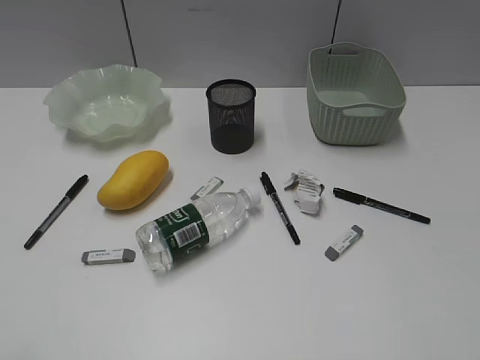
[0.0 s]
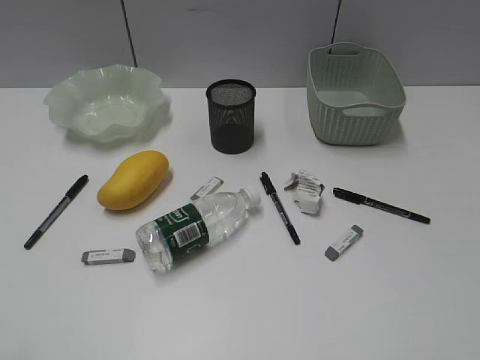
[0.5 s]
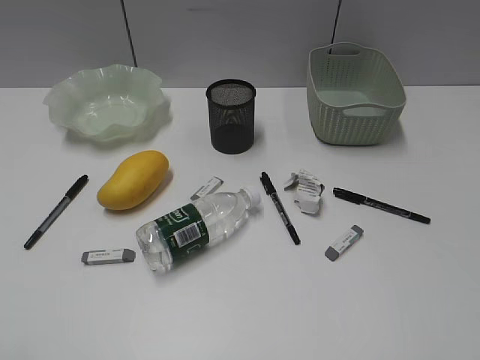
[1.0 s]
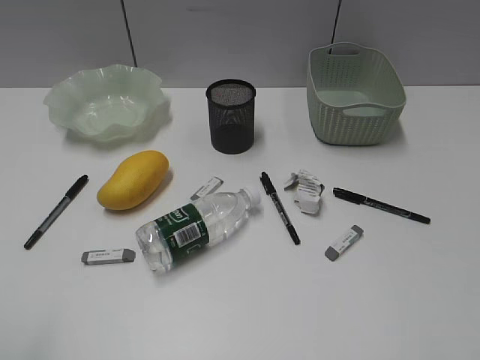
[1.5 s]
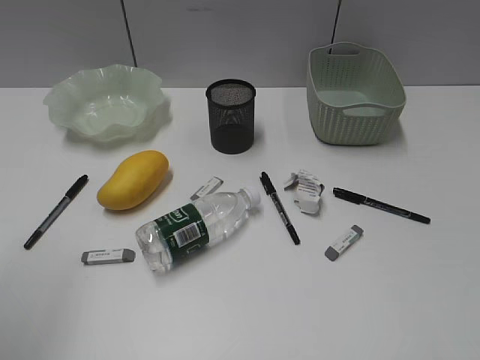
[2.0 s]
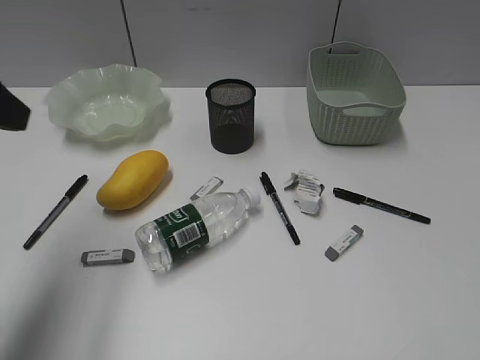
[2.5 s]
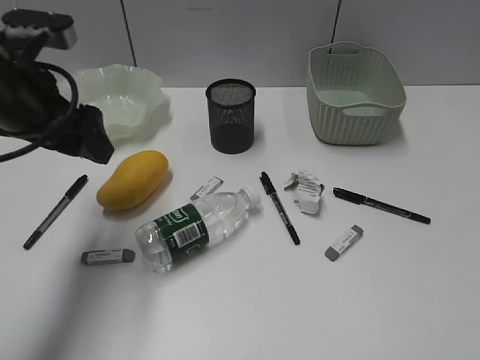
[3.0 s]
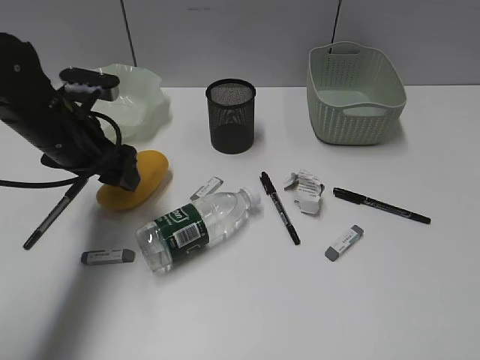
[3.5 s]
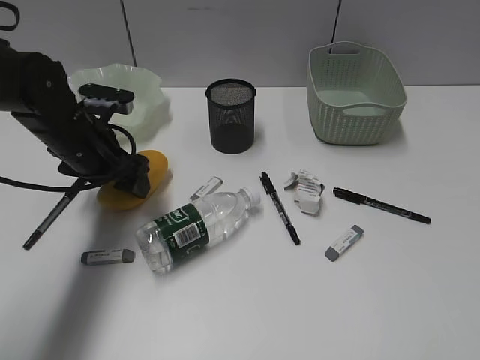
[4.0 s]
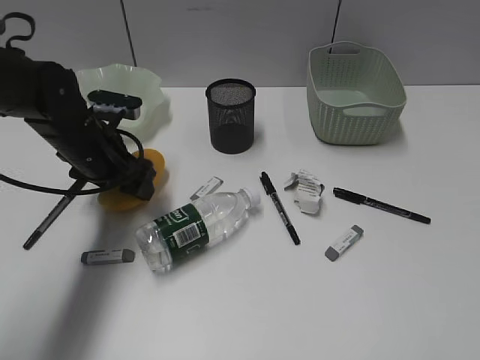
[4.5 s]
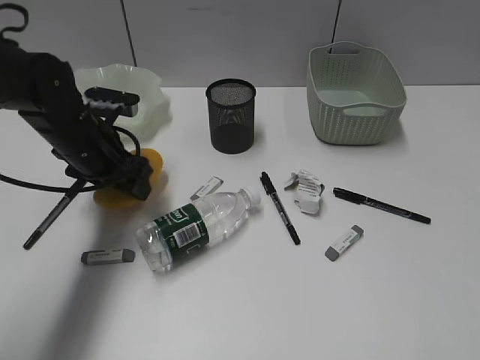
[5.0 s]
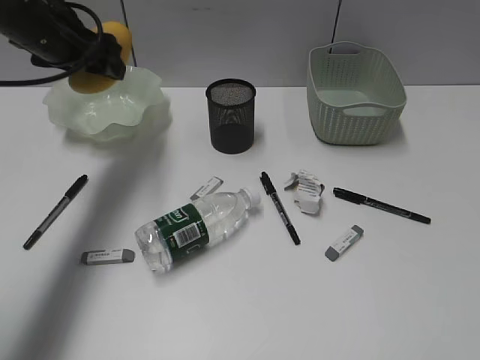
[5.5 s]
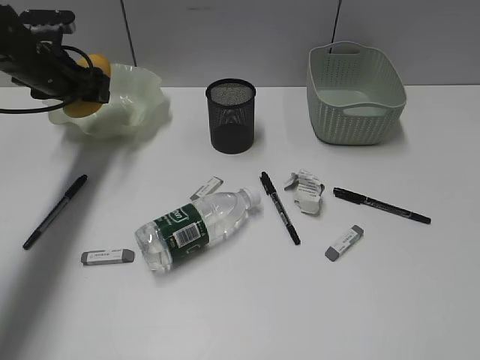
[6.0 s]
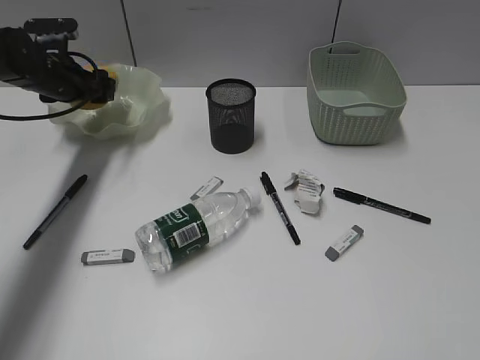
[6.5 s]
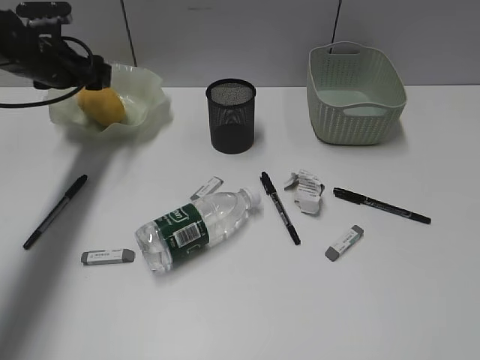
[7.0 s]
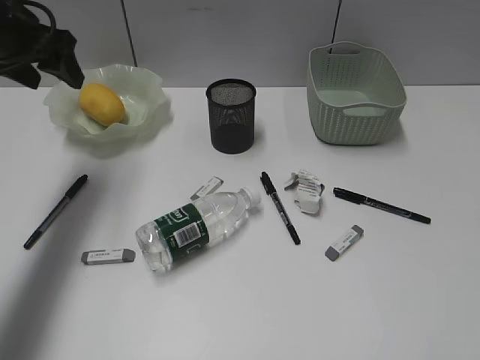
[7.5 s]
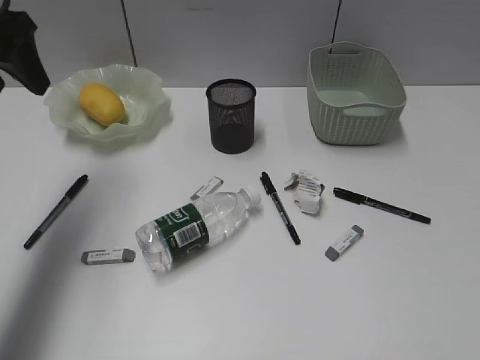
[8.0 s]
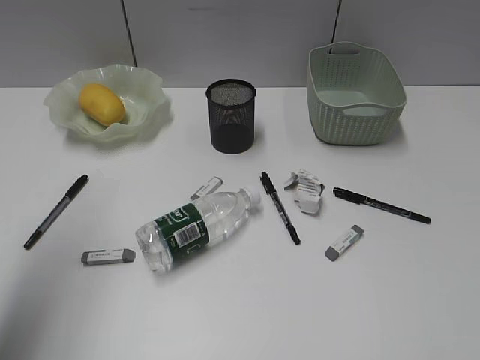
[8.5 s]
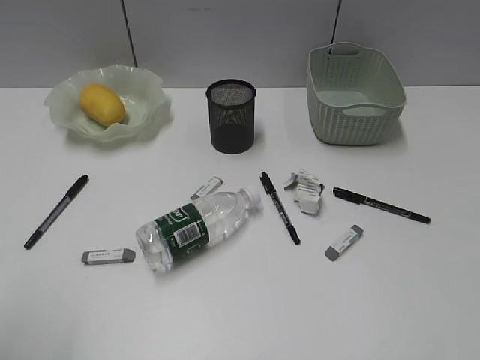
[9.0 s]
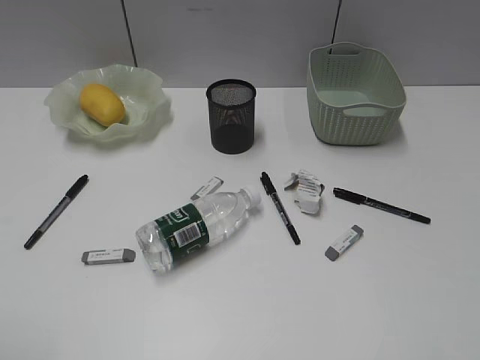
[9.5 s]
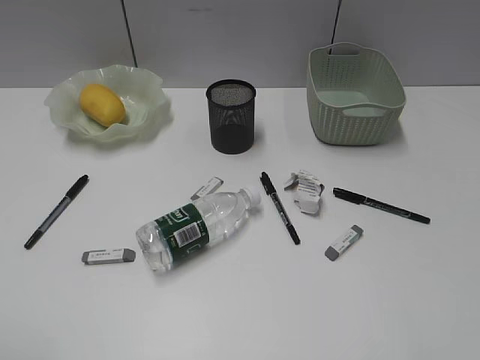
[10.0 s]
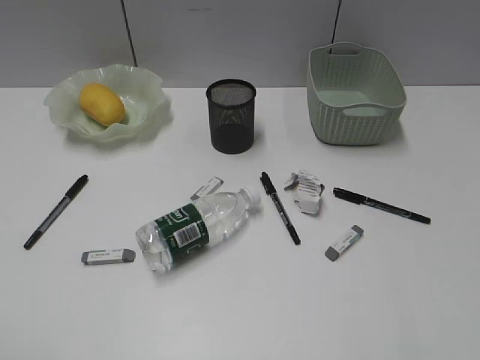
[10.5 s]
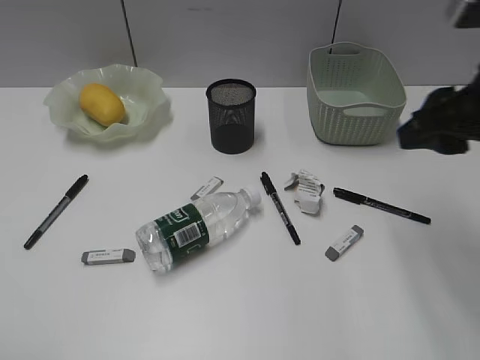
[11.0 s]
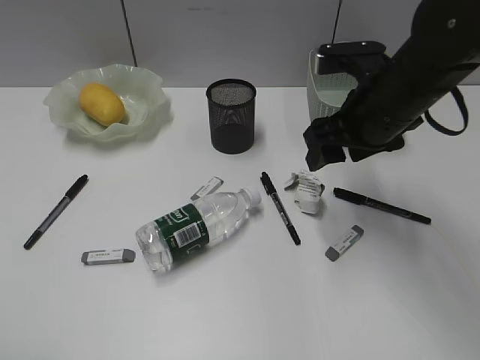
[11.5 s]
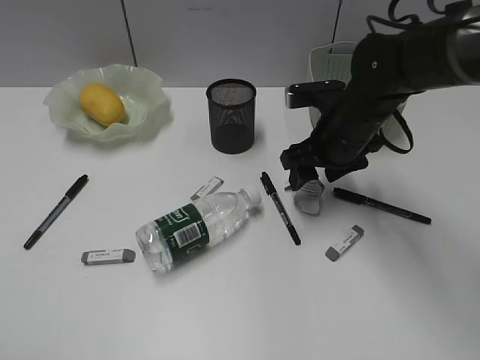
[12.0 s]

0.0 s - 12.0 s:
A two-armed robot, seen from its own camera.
Step, 2.5 s - 4.5 s: Grasp the mango with left gripper.
Step, 5.0 s - 7.0 s: Place the mango in the plate with left gripper.
2.0 s - 4.0 s: The left gripper is displaced forward, downward and to the right by roughly 35 cm.
4.0 s - 6.0 s: The left gripper travels forward and to the left by roughly 15 cm, and moves some 10 cm upward and comes back.
6.0 s - 8.0 s: The left gripper travels upward and backward by approximately 20 cm.
8.0 s - 10.0 s: The left gripper goes about 35 cm backward.
10.0 s - 12.0 s: The right gripper travels forward, downward and to the left by some 40 cm.

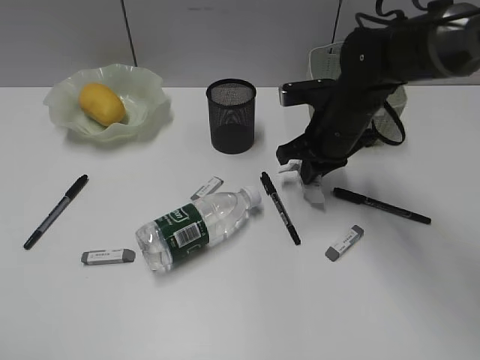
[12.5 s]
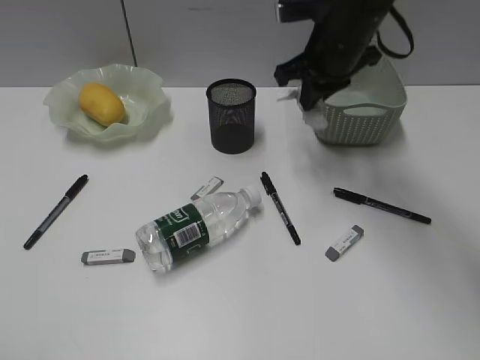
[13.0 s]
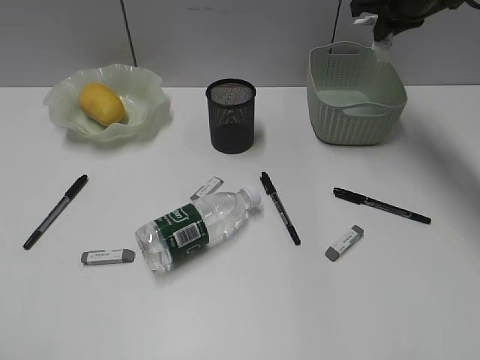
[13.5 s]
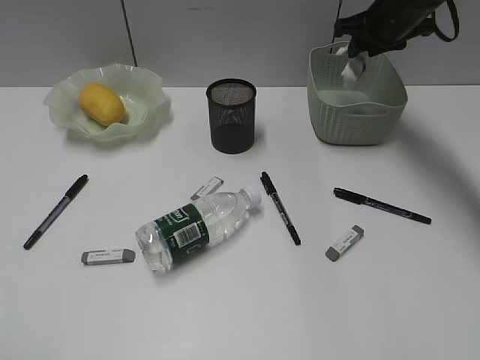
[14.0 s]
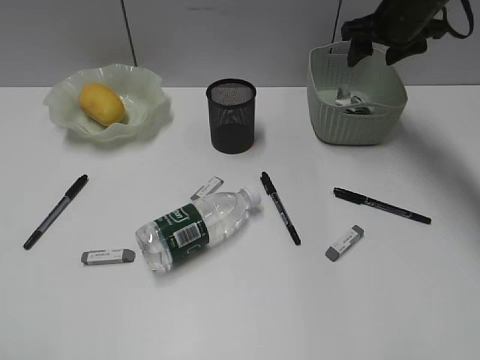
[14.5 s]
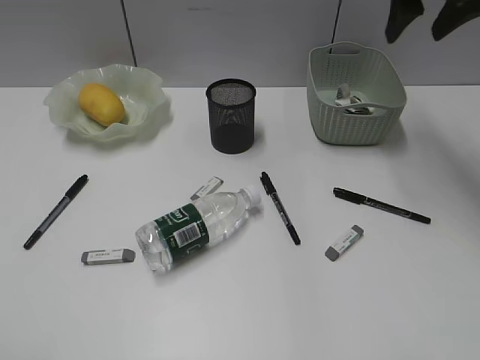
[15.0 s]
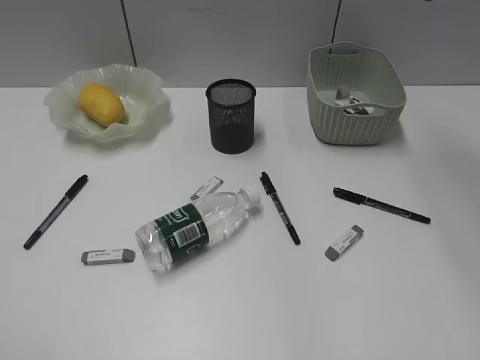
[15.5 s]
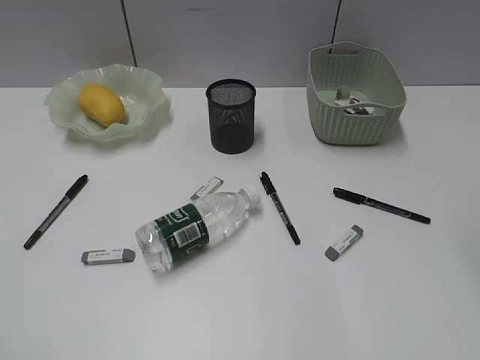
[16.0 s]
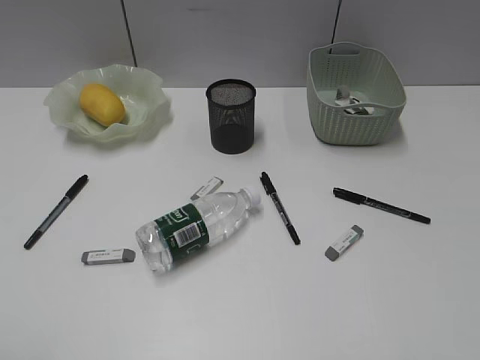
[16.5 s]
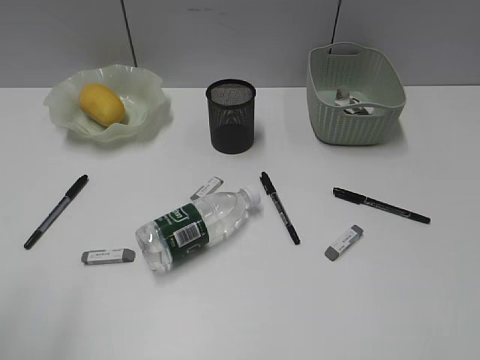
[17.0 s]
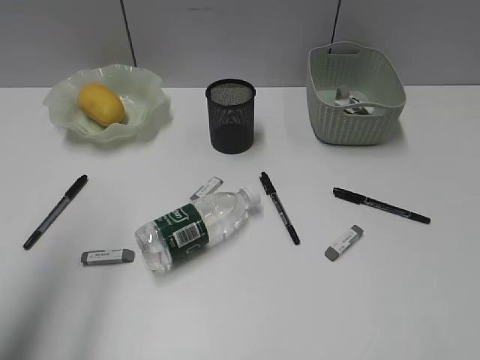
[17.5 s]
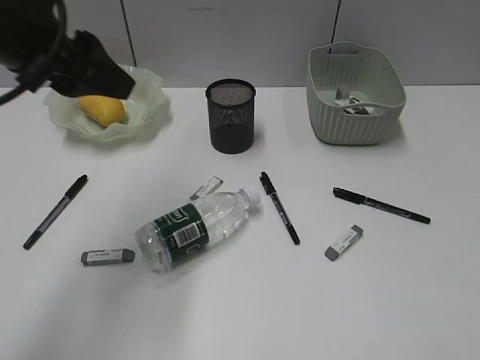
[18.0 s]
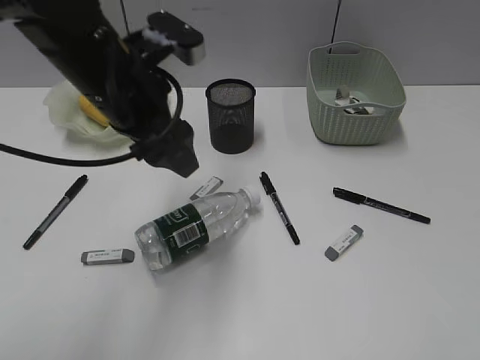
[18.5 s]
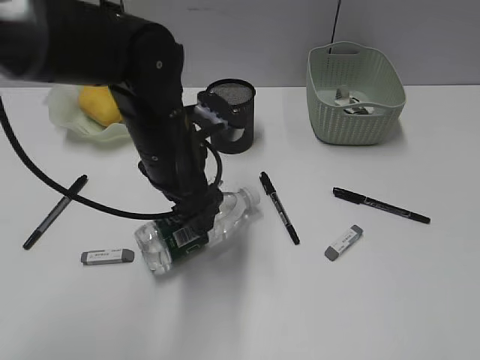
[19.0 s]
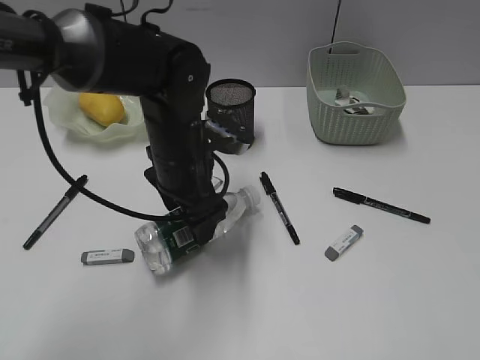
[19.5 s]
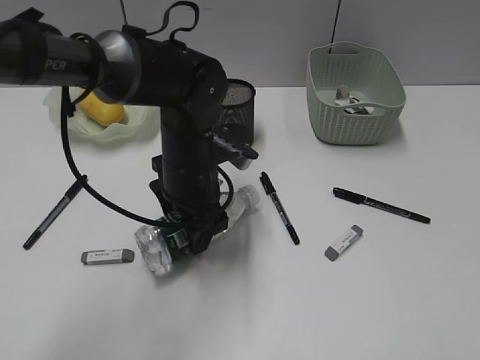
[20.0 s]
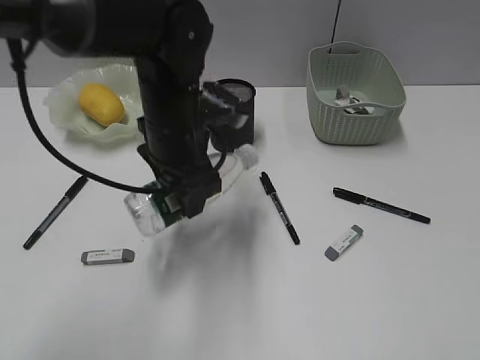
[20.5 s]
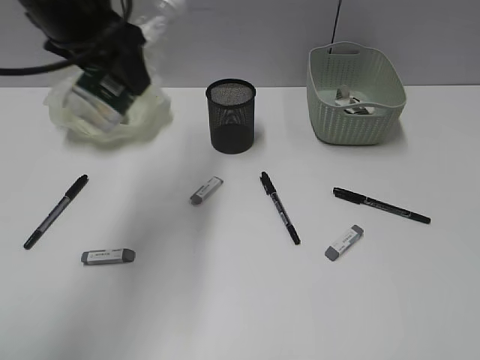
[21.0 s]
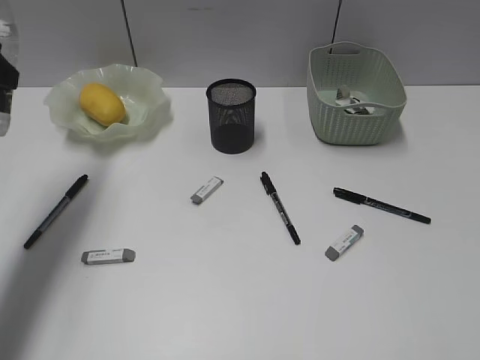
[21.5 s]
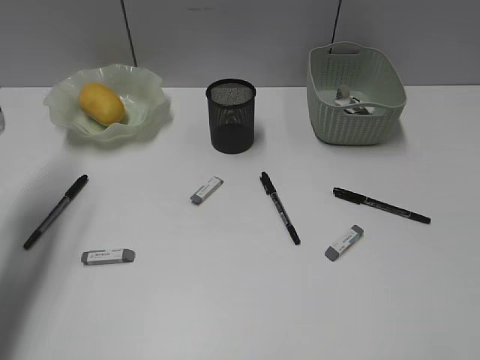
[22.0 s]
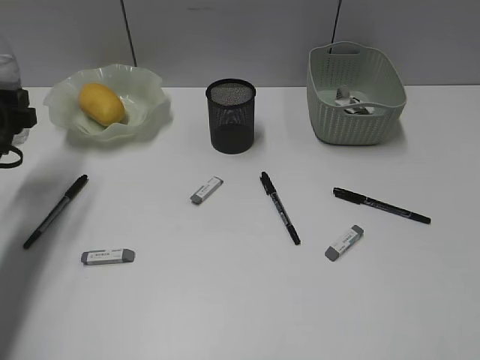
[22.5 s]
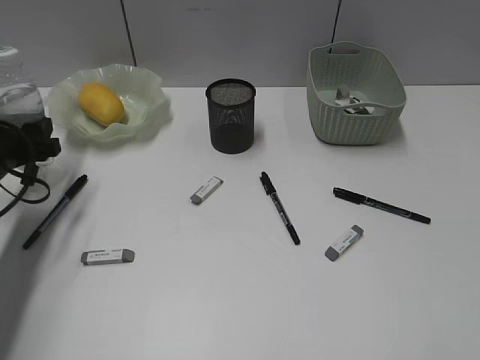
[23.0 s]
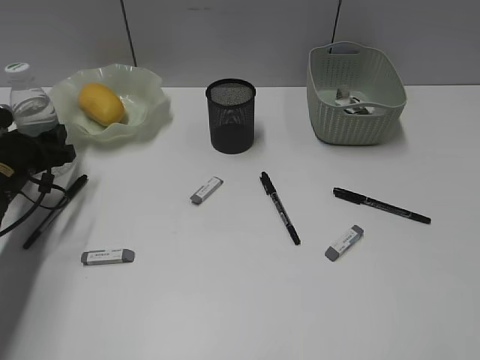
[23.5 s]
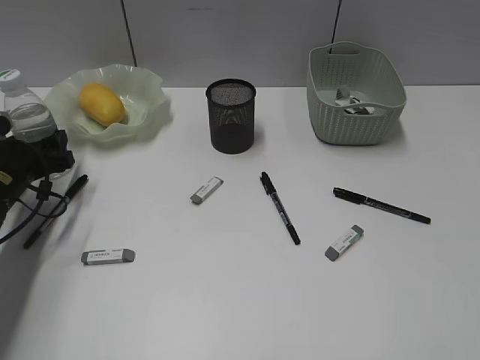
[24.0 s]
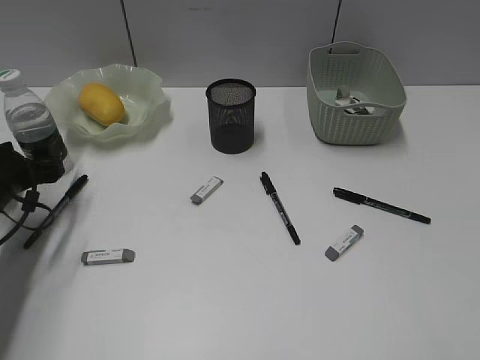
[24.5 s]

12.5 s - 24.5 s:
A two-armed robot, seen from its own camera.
Step, 12.5 s - 14.0 s: Place the waste paper in the basket with right gripper.
Step, 14.5 s - 20.0 s: Grasp the bottle with left gripper.
12.5 s - 14.5 s: The right gripper travels forward, upward and to the right by some 20 cm, and opens its fingers.
14.5 s - 16.5 s: The right gripper moves backward, roughly 40 cm.
16.5 s - 18.5 s: The right gripper heads downward, covering about 5 cm; the left gripper is displaced forward and to the right by about 35 cm.
18.5 s - 20.5 s: The left gripper goes approximately 10 cm downward and to the right.
20.5 s - 22.5 s: The left gripper is displaced to the left by roughly 25 cm.
22.5 s - 24.5 s: The left gripper travels downward by approximately 10 cm.

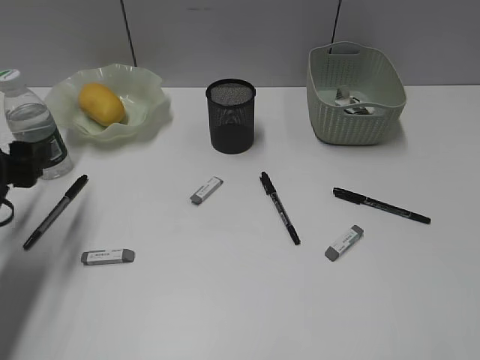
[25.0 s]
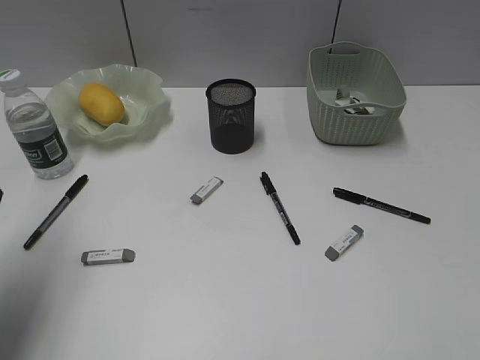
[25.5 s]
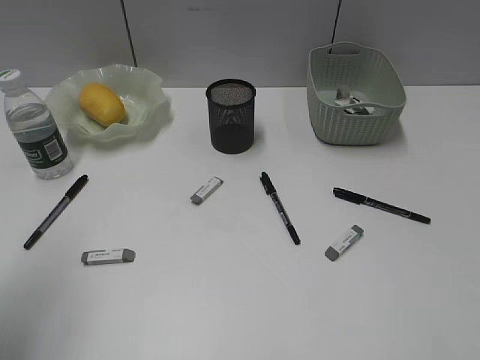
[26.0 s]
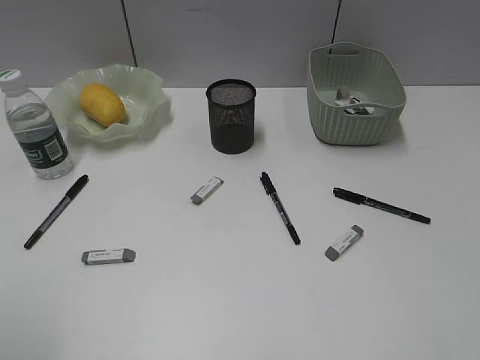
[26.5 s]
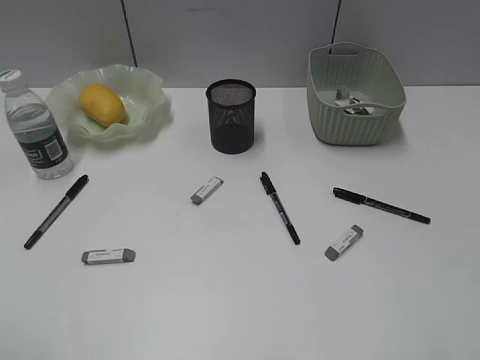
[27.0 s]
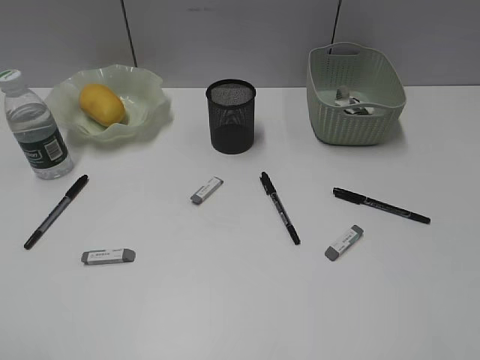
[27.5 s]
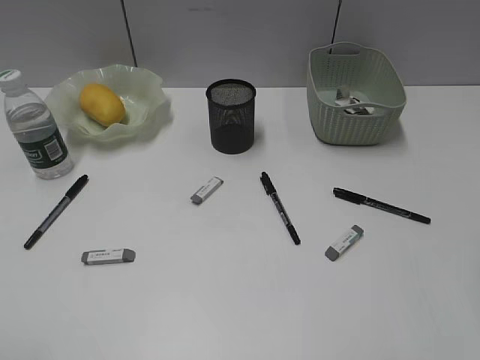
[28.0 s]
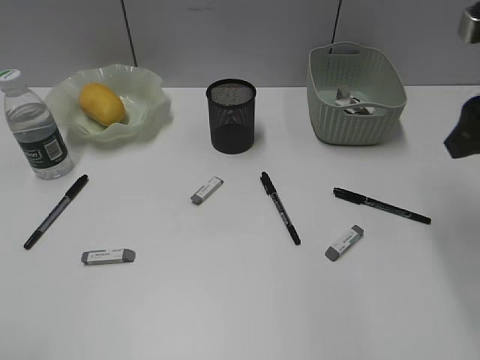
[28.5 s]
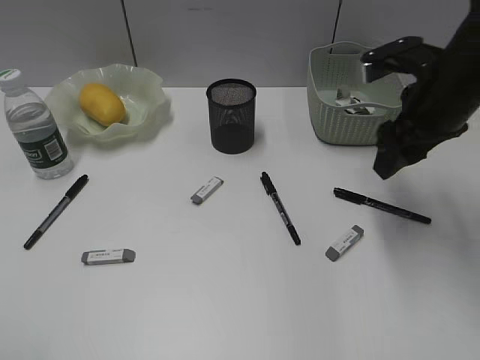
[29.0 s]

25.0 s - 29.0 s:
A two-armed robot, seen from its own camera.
25.0 s - 27.0 s: The left gripper goes approximately 30 cm backward and upward.
27.0 s - 29.0 s: The right gripper shifts approximately 30 cm forward.
